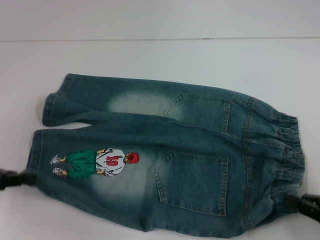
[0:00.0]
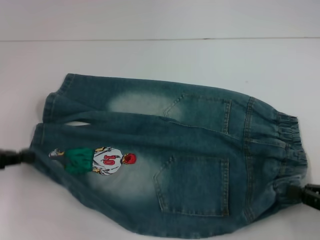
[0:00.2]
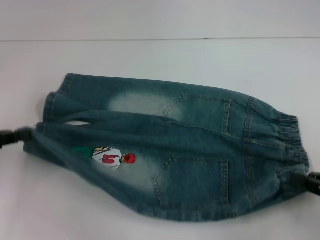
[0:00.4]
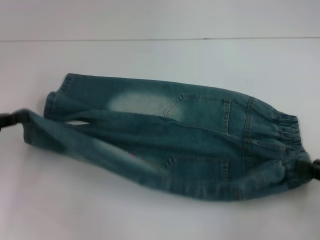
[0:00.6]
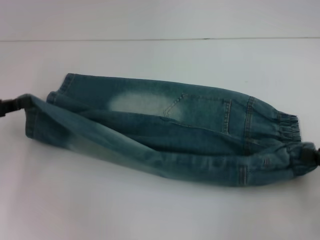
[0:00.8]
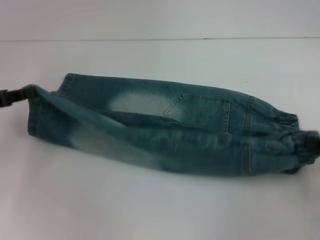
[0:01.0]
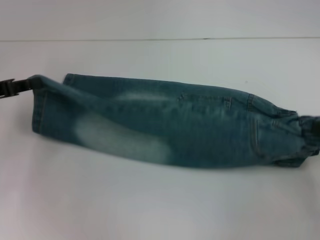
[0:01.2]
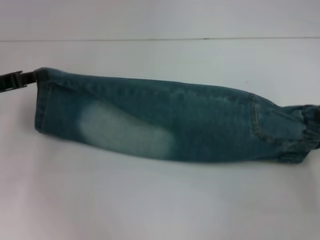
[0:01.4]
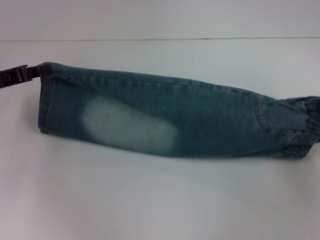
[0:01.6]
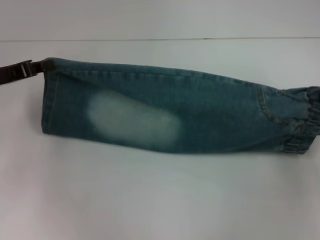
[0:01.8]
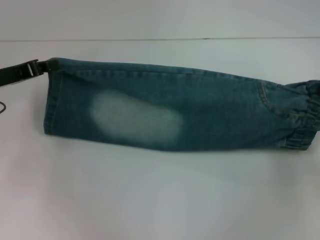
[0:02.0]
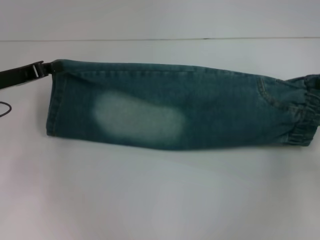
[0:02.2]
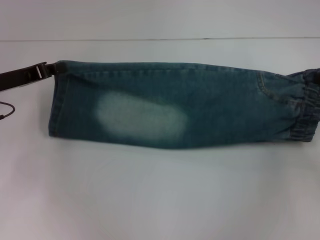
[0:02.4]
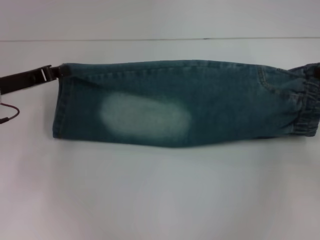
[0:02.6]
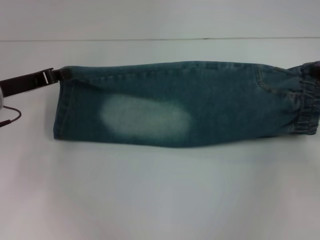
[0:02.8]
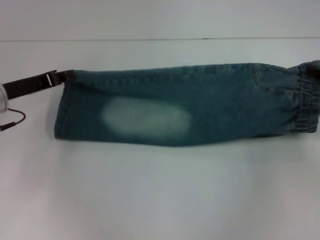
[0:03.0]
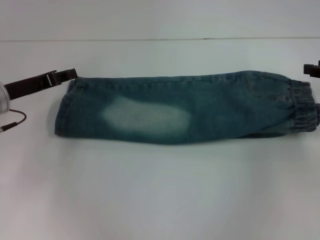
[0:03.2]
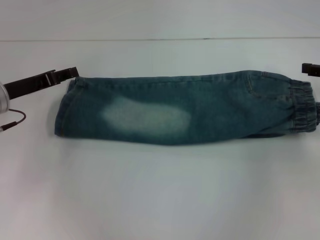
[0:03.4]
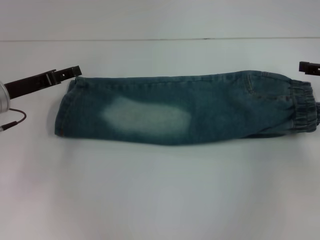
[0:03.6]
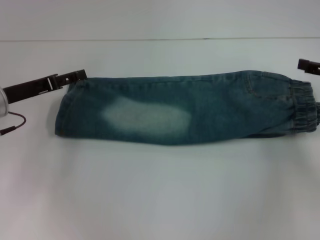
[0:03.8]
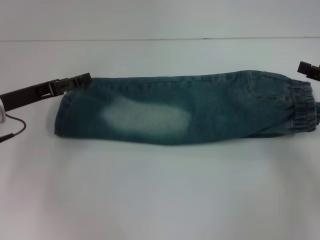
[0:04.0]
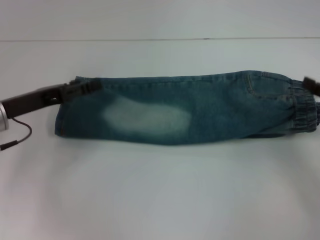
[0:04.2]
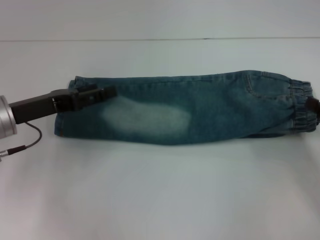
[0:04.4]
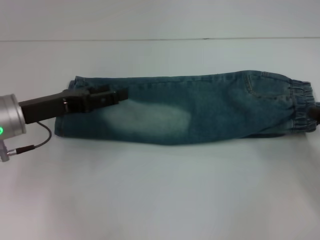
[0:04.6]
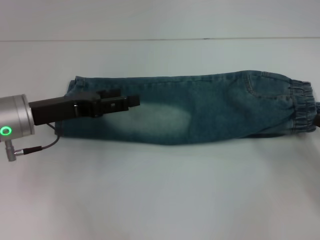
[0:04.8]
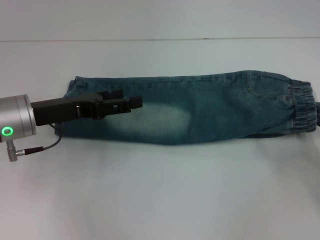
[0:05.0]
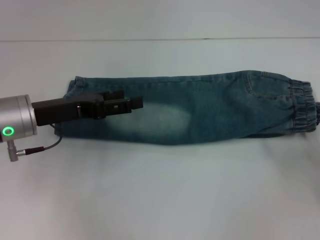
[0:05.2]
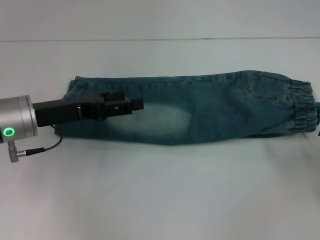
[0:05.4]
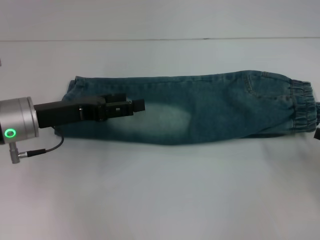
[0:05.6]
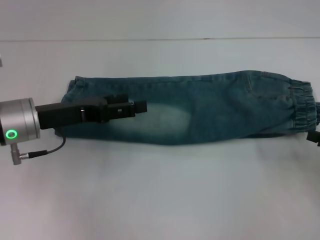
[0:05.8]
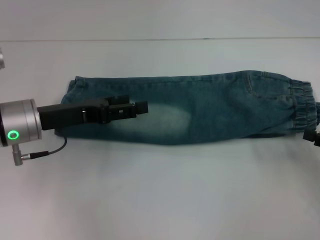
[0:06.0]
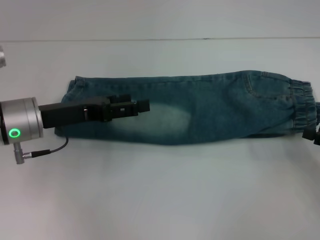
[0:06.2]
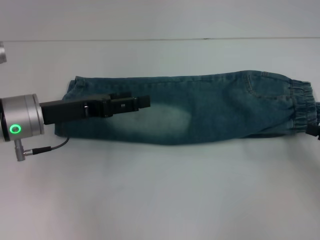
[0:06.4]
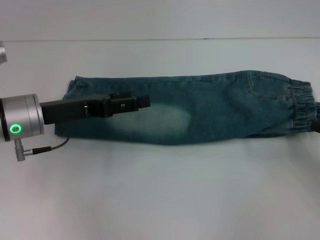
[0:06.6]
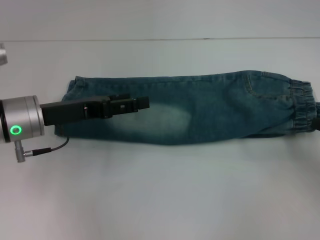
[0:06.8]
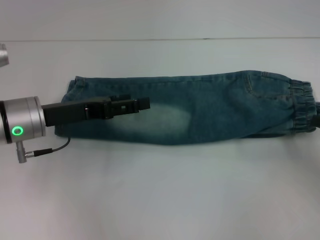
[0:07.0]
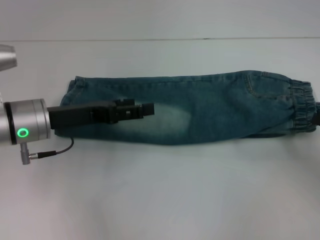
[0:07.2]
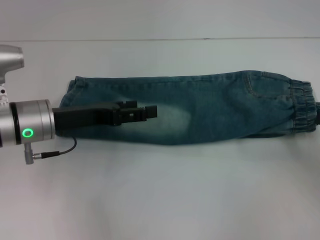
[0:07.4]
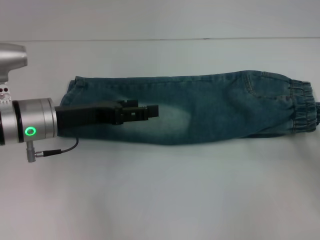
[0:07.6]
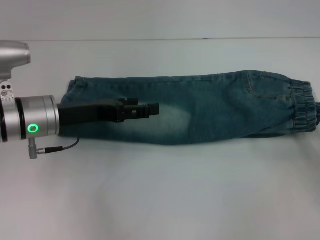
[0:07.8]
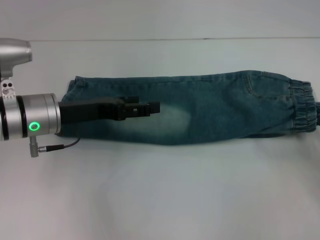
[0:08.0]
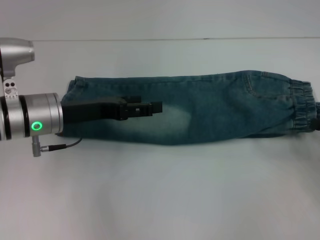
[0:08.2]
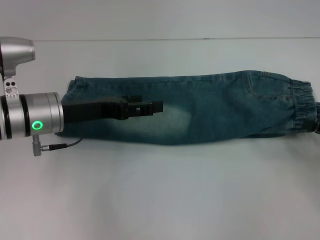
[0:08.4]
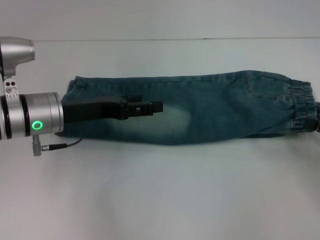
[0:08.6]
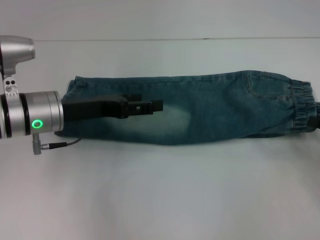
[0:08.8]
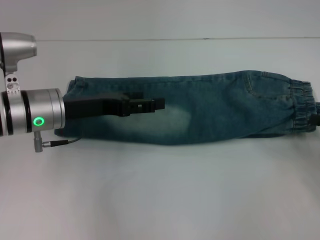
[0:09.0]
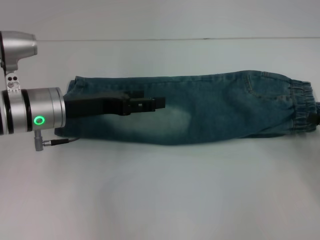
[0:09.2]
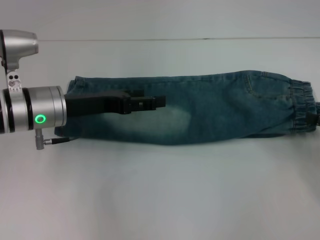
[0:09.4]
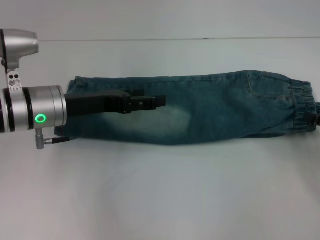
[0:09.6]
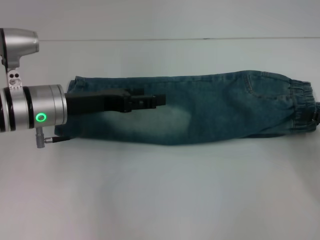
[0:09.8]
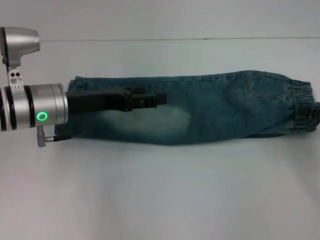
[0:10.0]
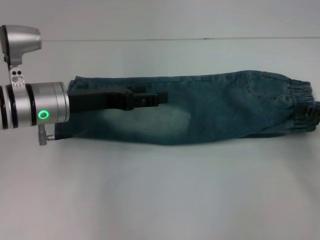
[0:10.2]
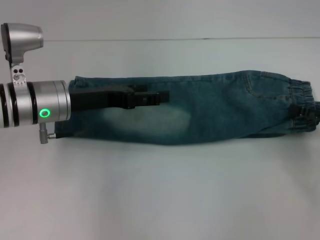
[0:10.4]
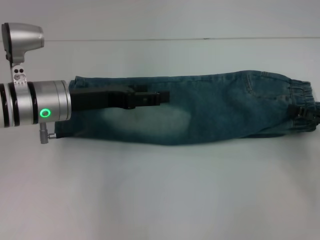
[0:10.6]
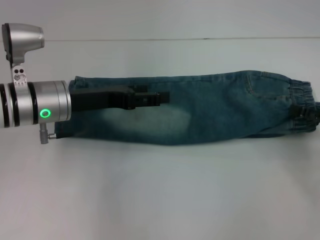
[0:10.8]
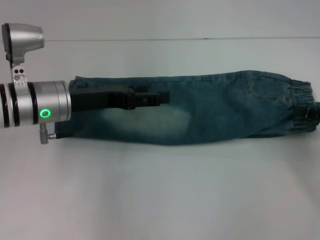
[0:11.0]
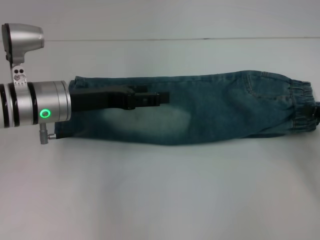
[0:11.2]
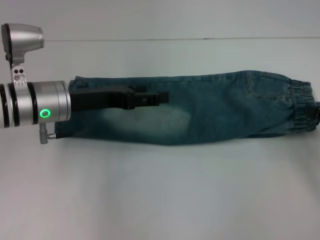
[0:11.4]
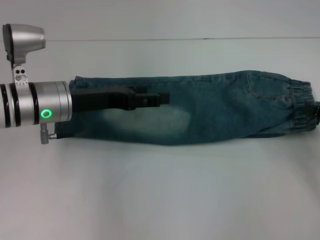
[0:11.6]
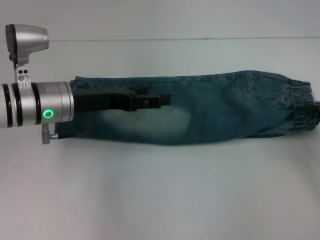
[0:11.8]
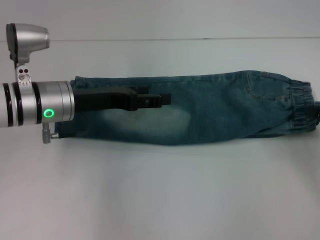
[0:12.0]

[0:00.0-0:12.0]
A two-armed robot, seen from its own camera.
Step, 0:00.0 to 0:03.0: Fold upward with your right hand.
0:00.0 to 0:01.6: The left gripper goes roughly 10 cm forward; the right gripper is displaced forward and upward by some 15 cm.
0:01.6 to 0:03.0: The right gripper shifts some 5 cm forward; the left gripper shifts by approximately 5 cm.
0:03.0 to 0:04.4: The right gripper shifts roughly 10 cm backward and downward, and opens up, while the left gripper opens its fingers.
0:04.4 to 0:07.6: The grippers move only a little.
0:07.6 to 0:09.0: The grippers move only a little.
0:09.0 to 0:10.4: The grippers stay close to where they were, moving slightly.

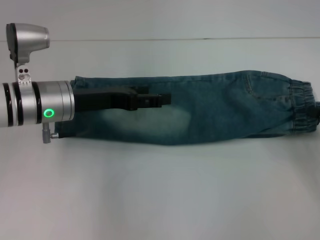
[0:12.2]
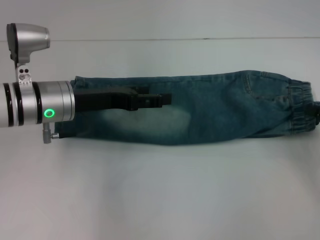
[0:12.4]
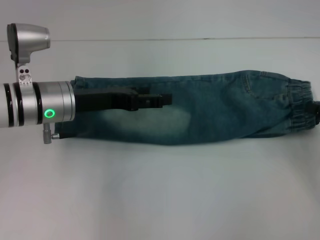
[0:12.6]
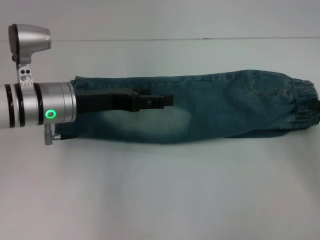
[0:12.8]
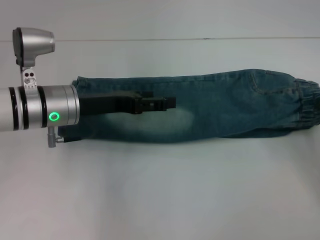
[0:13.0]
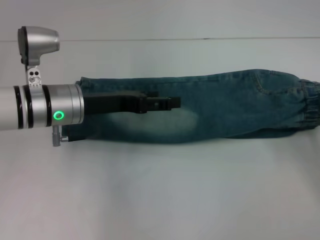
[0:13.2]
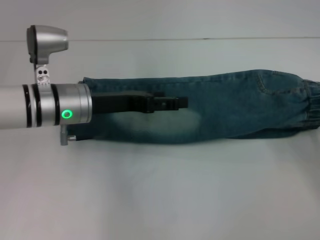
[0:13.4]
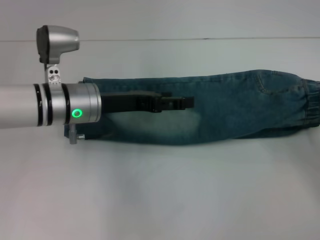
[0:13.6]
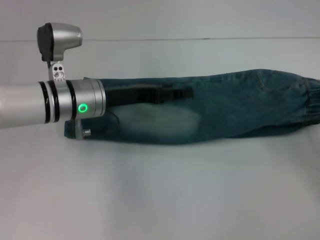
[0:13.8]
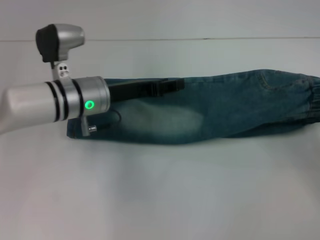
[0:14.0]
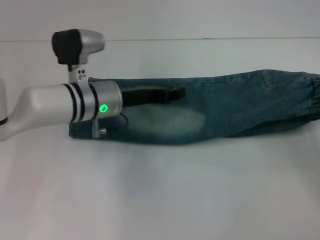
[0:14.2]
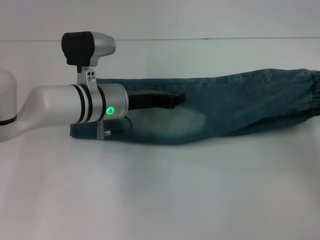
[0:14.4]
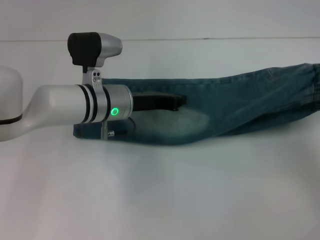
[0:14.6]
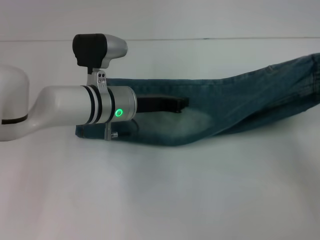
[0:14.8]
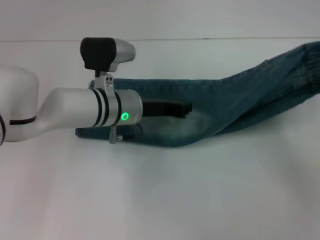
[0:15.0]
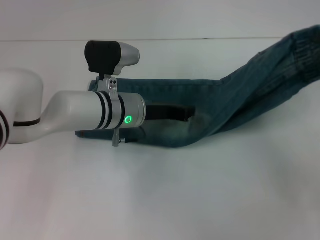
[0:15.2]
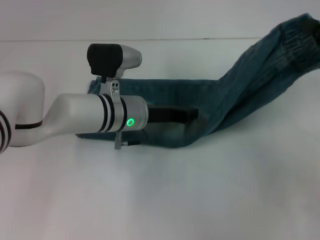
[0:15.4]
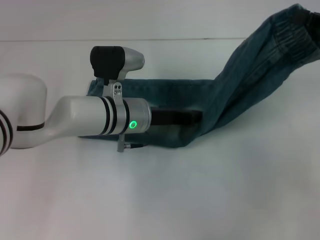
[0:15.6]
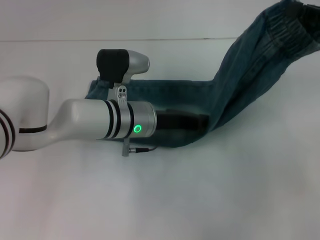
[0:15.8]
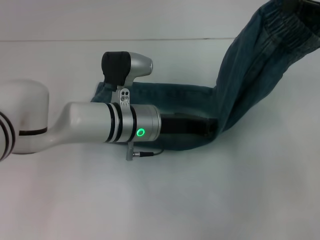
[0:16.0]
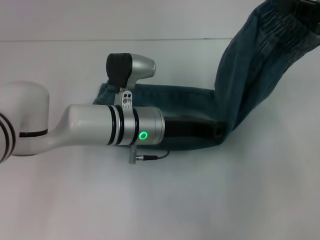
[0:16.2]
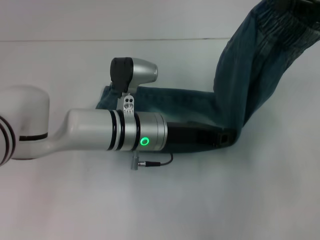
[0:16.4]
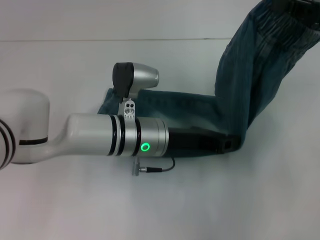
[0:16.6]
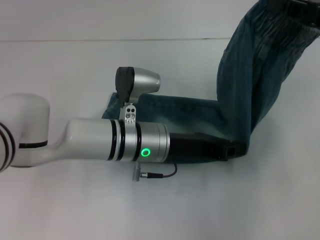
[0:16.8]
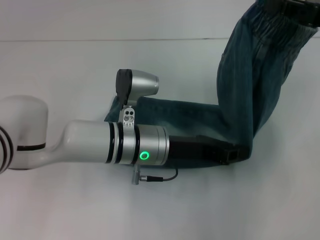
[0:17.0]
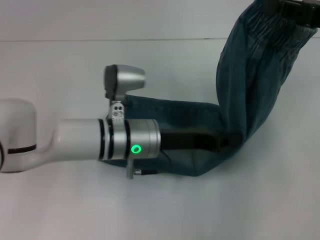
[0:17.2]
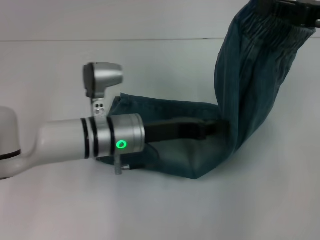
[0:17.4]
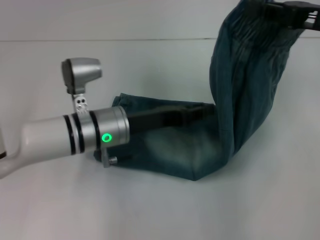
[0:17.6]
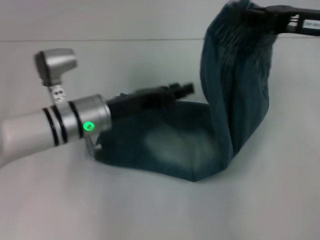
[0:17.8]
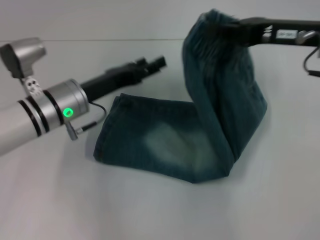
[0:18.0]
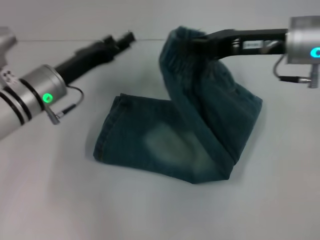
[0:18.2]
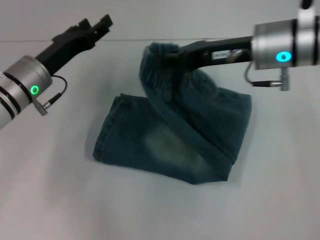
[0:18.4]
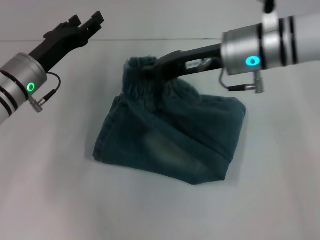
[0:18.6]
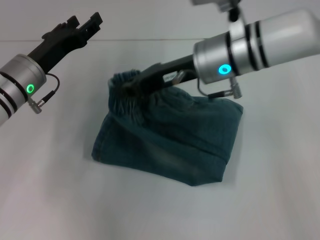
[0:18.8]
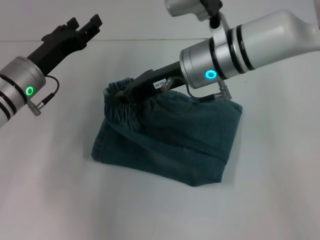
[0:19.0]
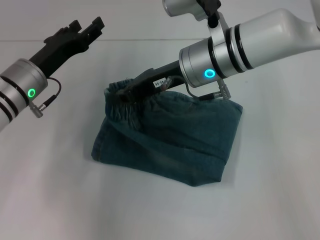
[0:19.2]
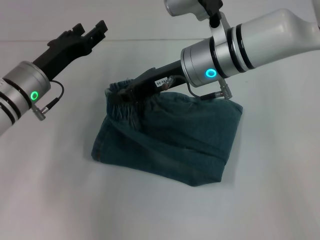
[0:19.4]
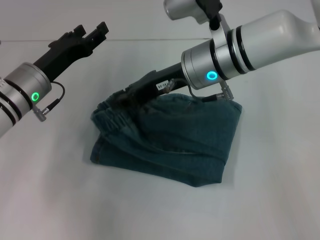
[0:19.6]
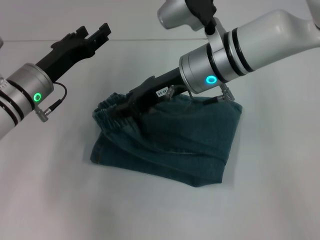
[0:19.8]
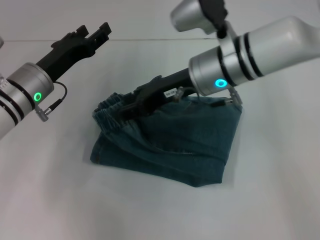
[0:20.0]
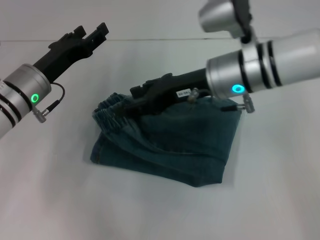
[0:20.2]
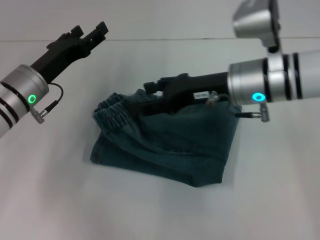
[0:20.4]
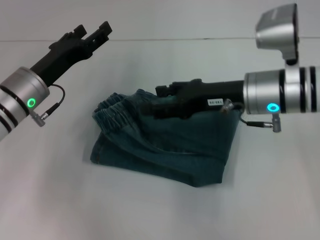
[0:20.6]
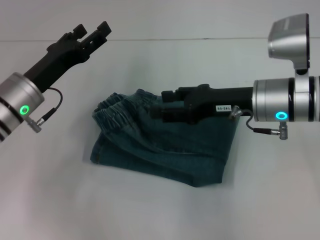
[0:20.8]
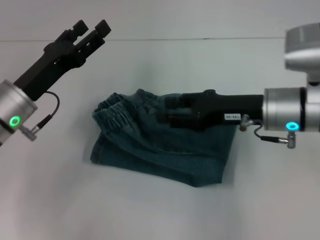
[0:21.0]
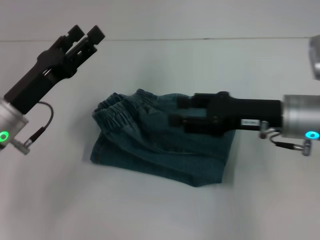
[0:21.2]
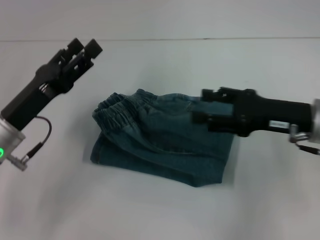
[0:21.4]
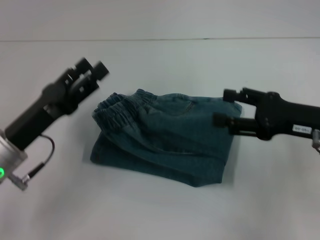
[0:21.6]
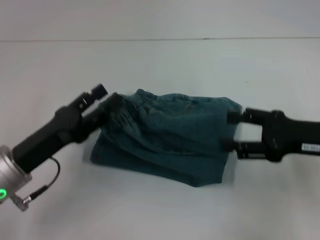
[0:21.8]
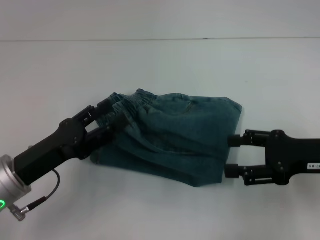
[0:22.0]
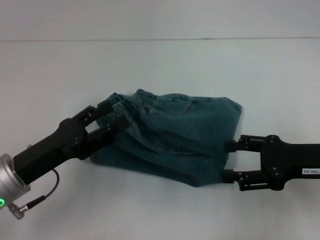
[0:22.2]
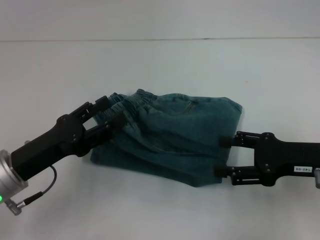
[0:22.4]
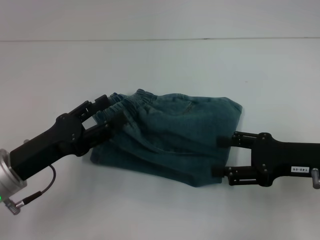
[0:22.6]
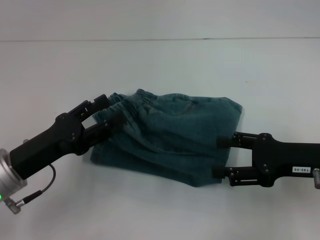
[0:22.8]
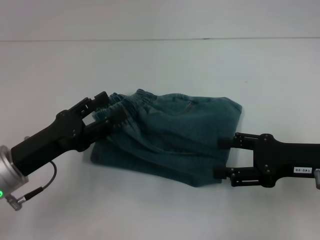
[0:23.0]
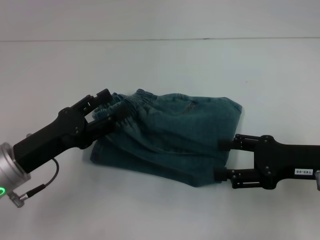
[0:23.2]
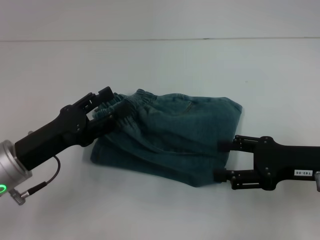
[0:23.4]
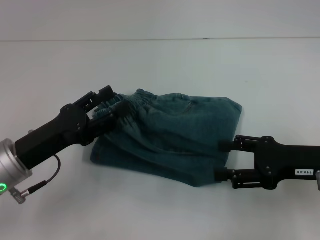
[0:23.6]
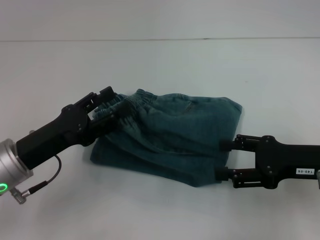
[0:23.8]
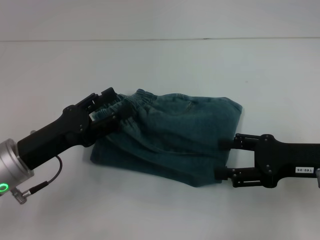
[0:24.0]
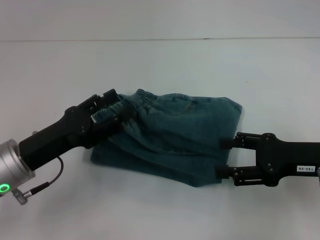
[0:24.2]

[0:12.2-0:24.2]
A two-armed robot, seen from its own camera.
Step, 0:12.4 to 0:17.2: Press the middle of the pants with your left hand.
Step, 0:17.4 to 0:19.6: Fold to the left with your right hand.
0:12.2 to 0:13.8: There are only small adjustments of the grippers.
0:13.8 to 0:15.2: The right gripper goes roughly 10 cm upward. Meanwhile the left gripper moves to the right, about 5 cm, and closes its fingers.
0:15.2 to 0:16.6: The right gripper is displaced upward and to the left by roughly 10 cm. Meanwhile the left gripper moves some 5 cm.
0:16.6 to 0:18.2: Both grippers travel together to the left, about 10 cm. The left gripper opens up.
0:18.2 to 0:19.8: The right gripper goes about 10 cm to the left.
0:19.8 to 0:21.2: The right gripper moves to the right and backward, approximately 15 cm, while the left gripper is displaced backward by roughly 5 cm.
0:21.2 to 0:22.6: The right gripper travels to the right and backward by approximately 10 cm, and opens; the left gripper is displaced backward by about 5 cm.
0:22.6 to 0:24.2: The grippers move only a little.
